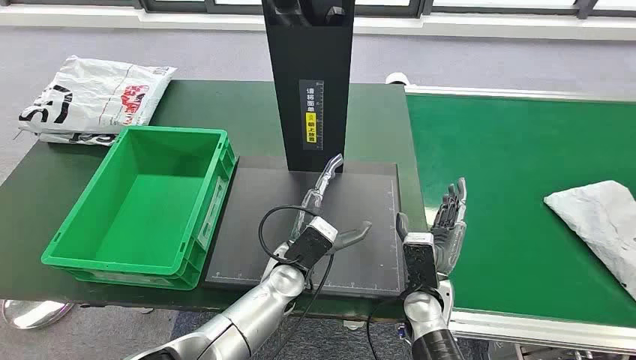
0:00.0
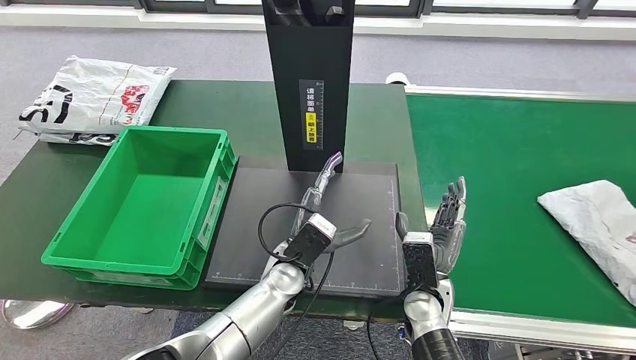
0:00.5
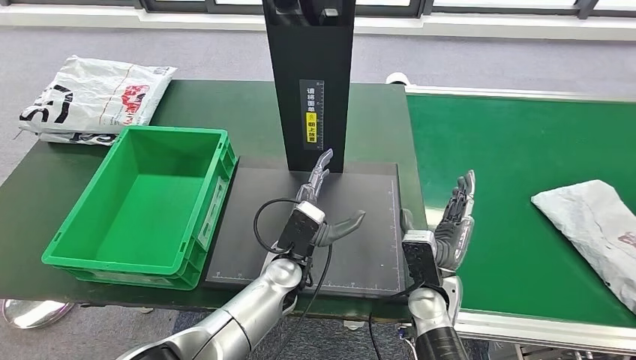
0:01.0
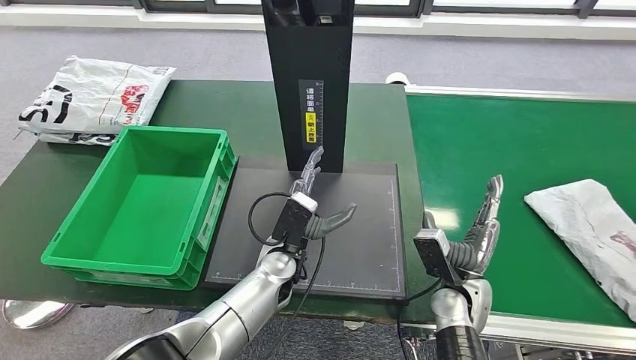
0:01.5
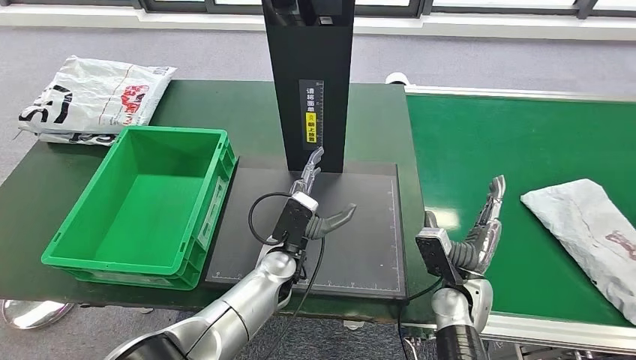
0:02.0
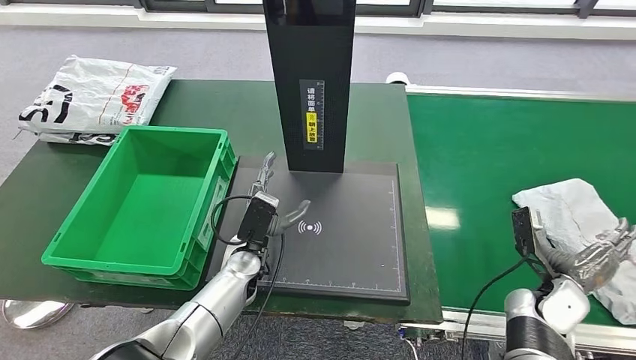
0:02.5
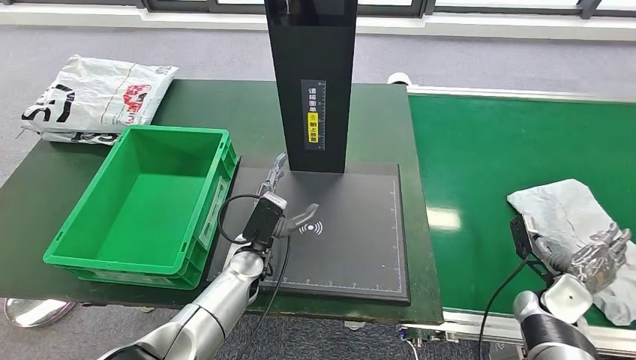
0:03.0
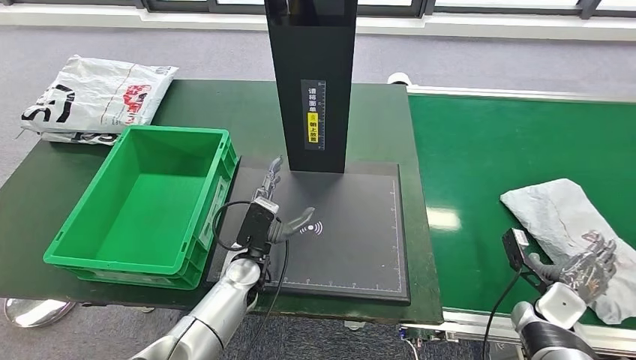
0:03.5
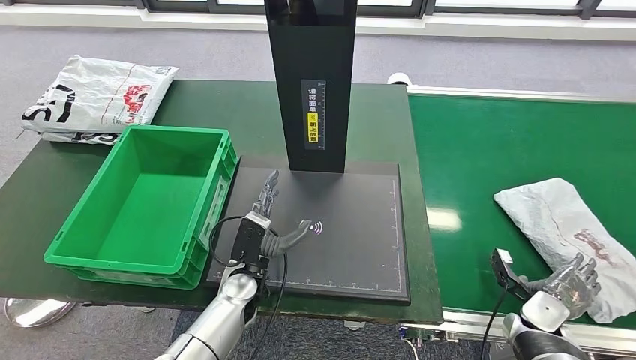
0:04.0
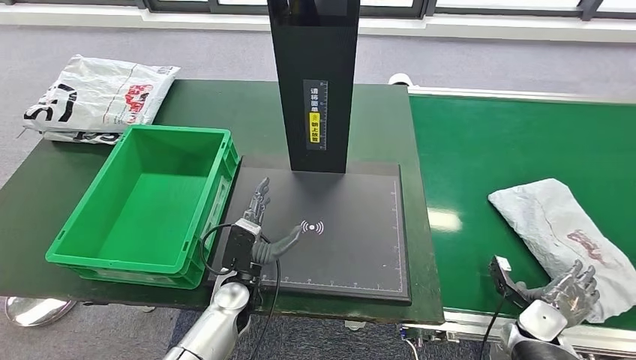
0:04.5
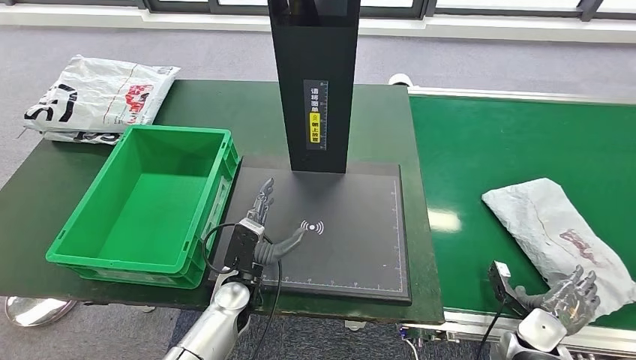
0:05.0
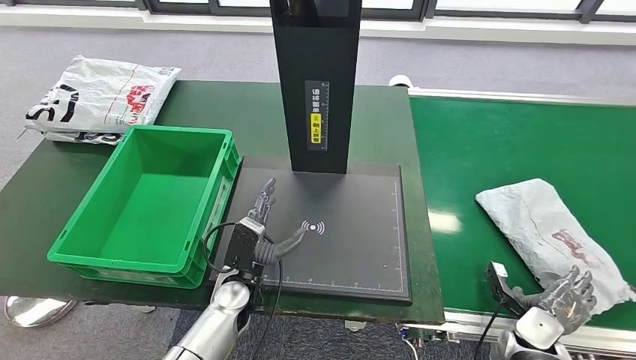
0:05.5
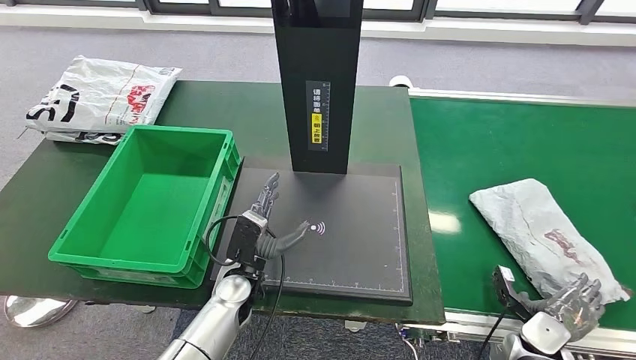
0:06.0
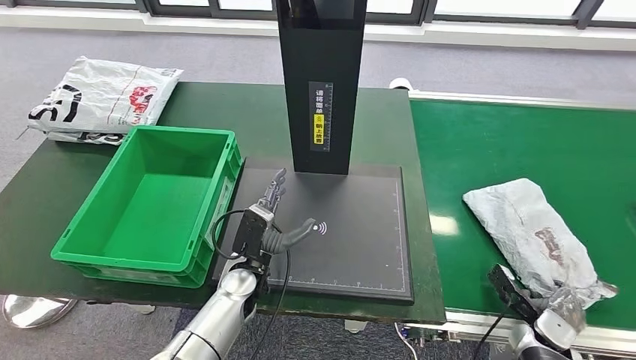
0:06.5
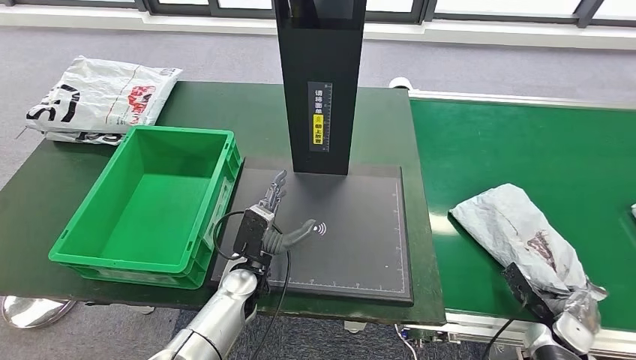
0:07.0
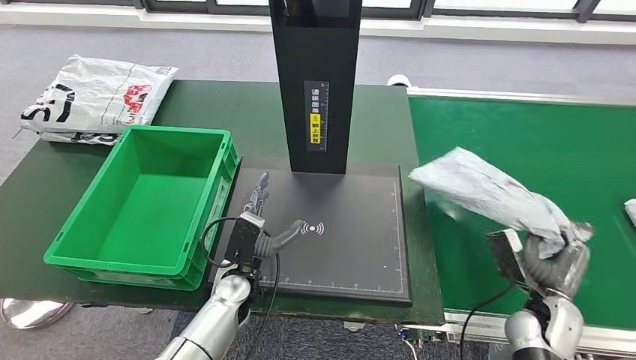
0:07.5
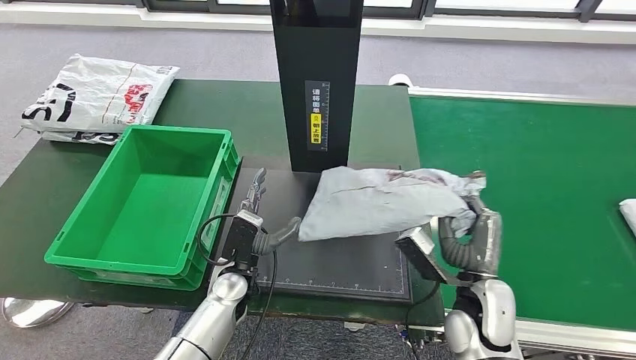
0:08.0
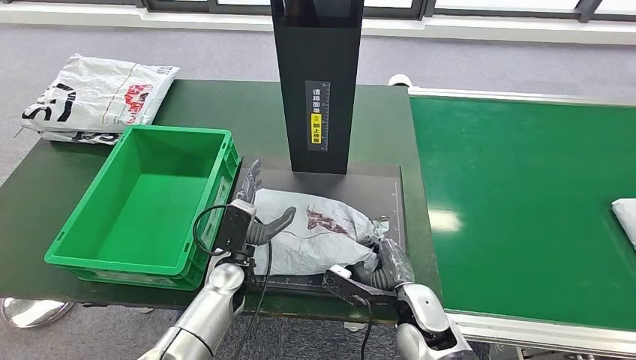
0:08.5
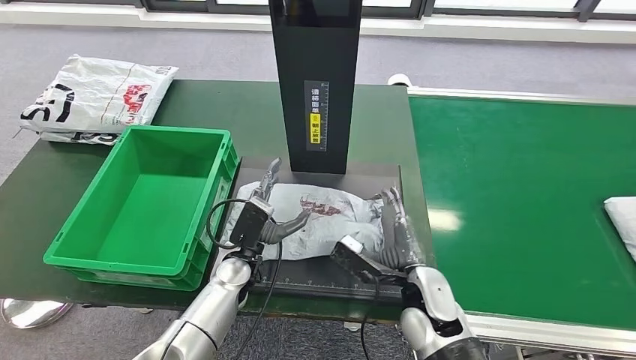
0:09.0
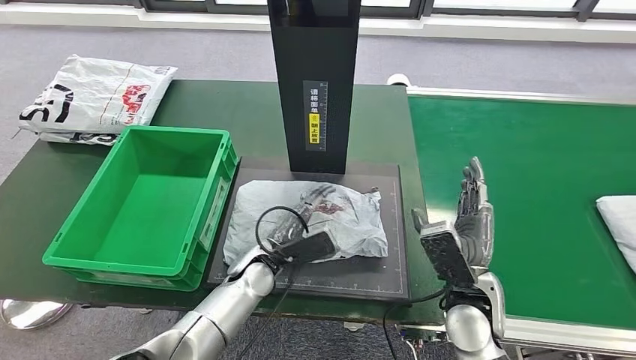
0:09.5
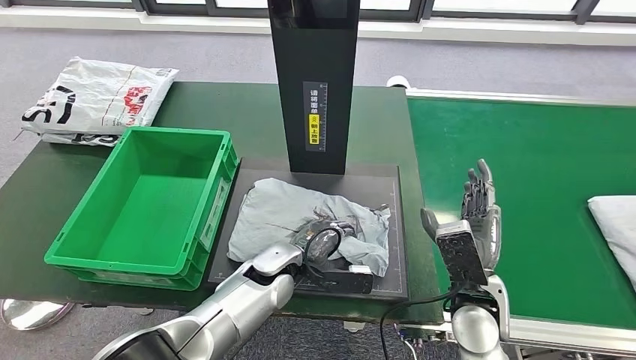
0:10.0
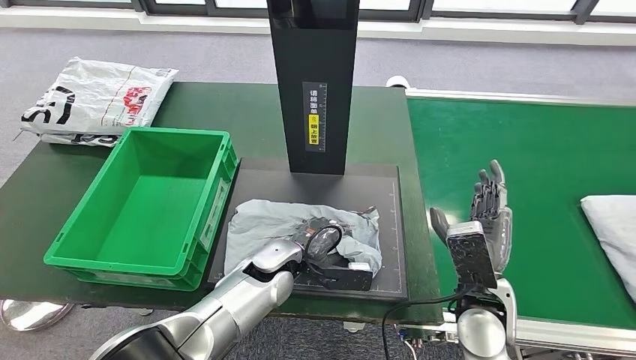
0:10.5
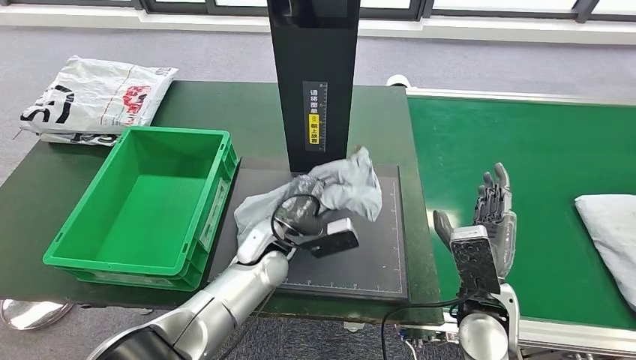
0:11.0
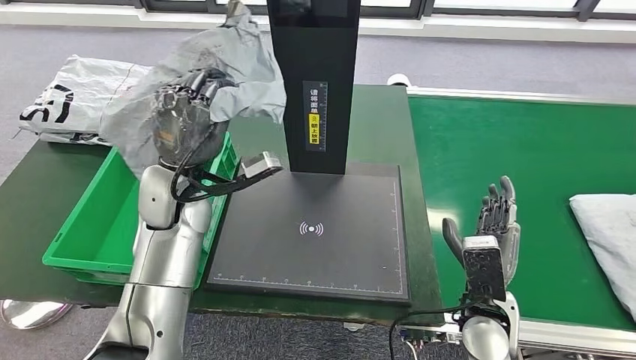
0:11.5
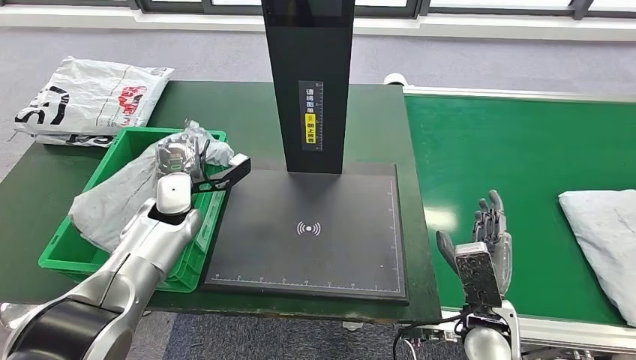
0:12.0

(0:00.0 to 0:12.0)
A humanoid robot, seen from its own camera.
Step, 0:00.0 - 0:07.0: Take the parcel off the conveyor belt.
Step, 0:08.0 - 0:09.5: Place the parcel onto the inbound machine.
Step, 0:10.0 - 0:11.0: Pick up the parcel from the inbound machine.

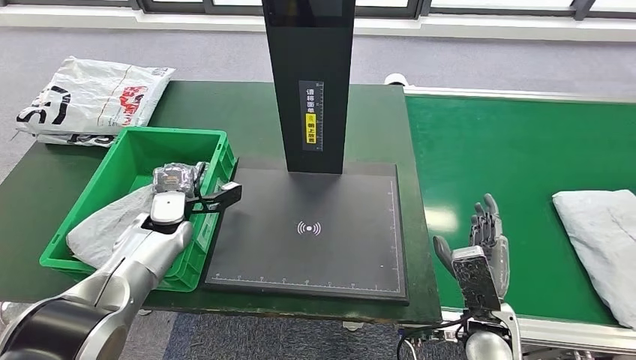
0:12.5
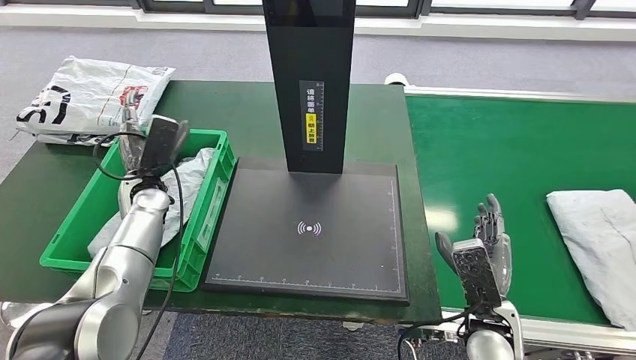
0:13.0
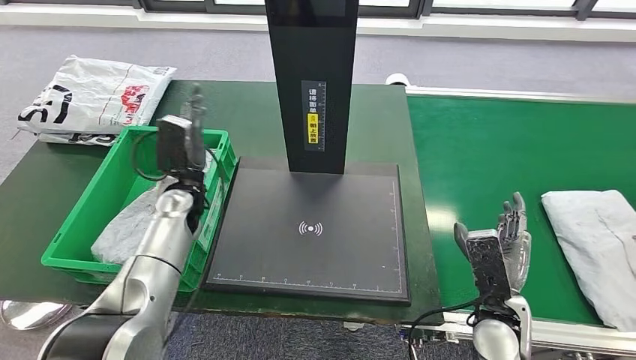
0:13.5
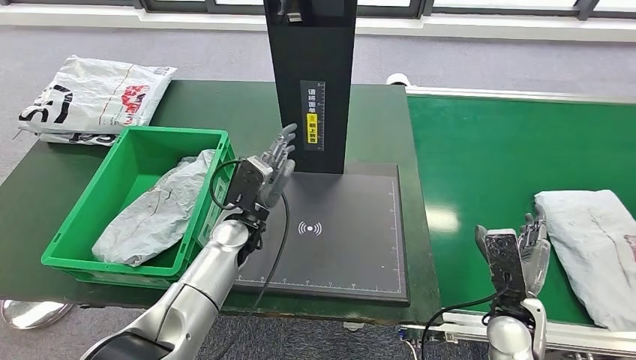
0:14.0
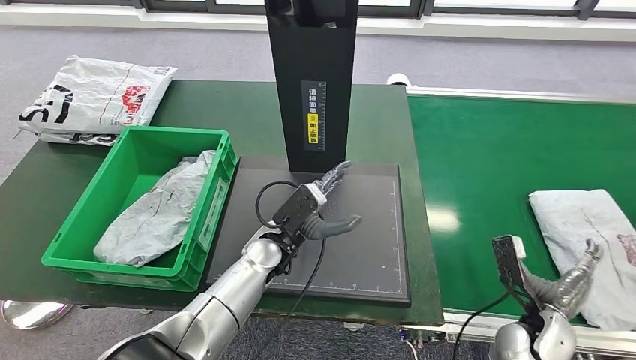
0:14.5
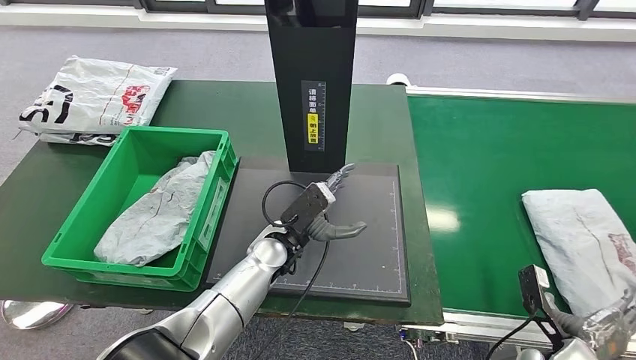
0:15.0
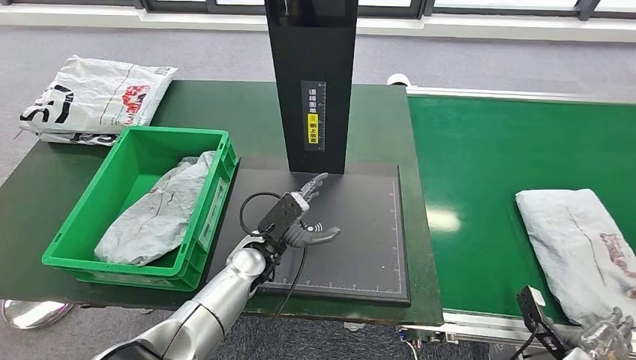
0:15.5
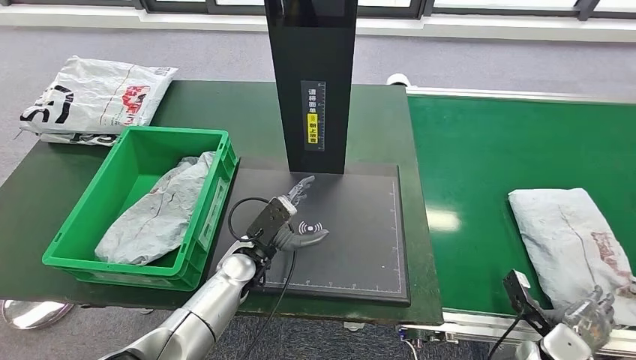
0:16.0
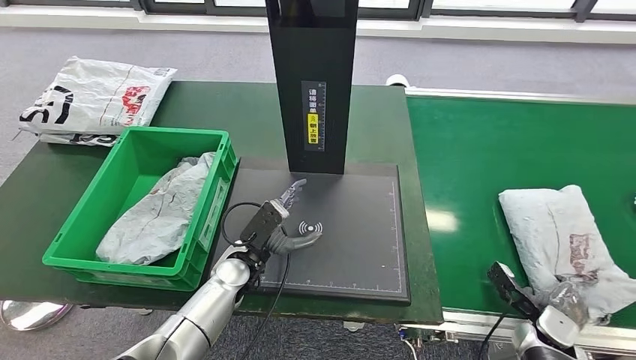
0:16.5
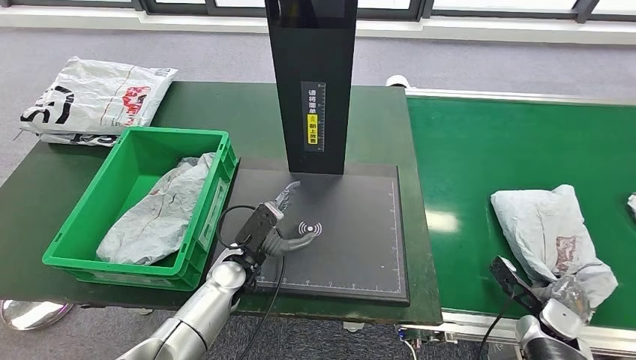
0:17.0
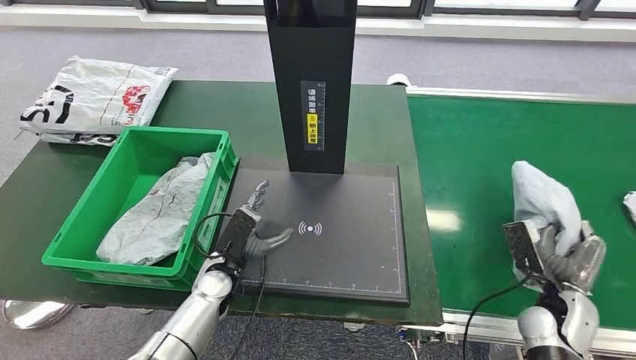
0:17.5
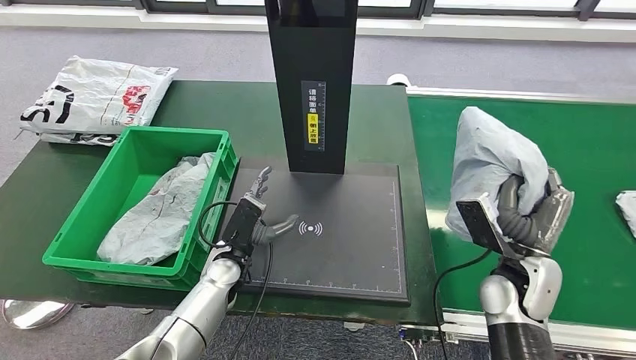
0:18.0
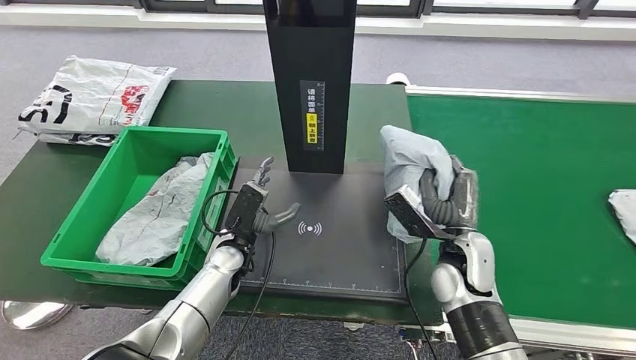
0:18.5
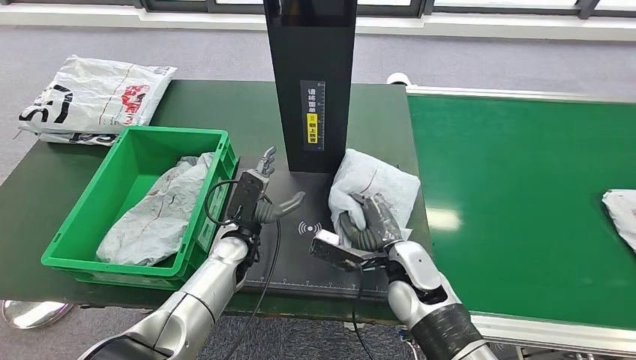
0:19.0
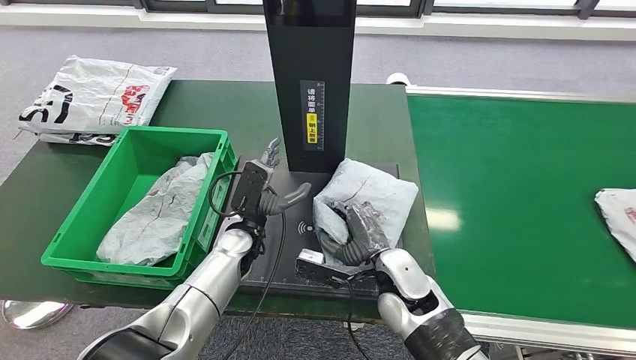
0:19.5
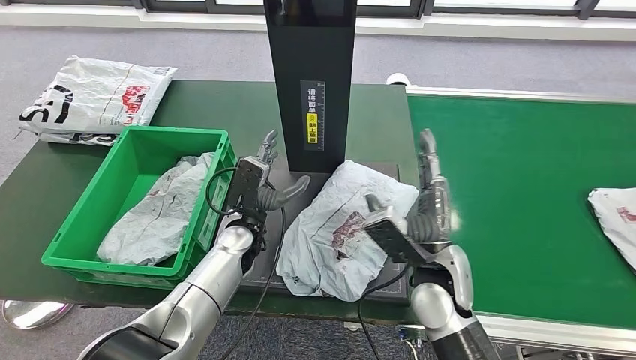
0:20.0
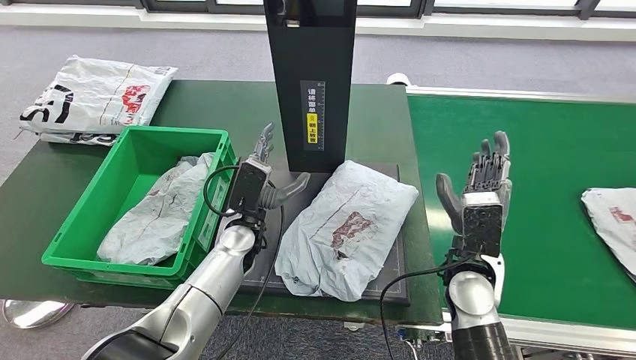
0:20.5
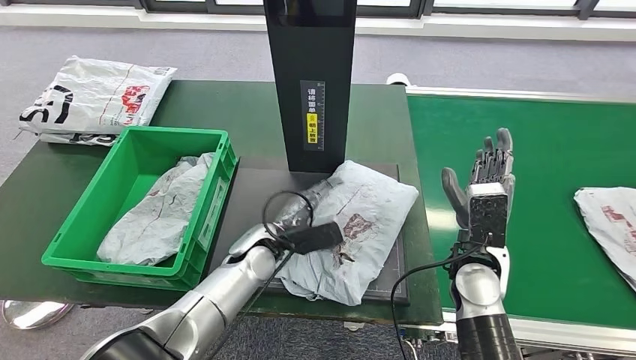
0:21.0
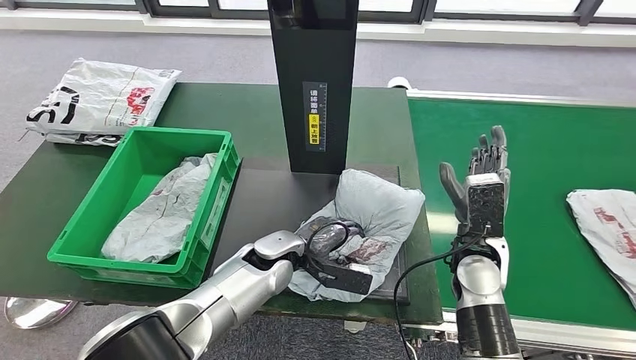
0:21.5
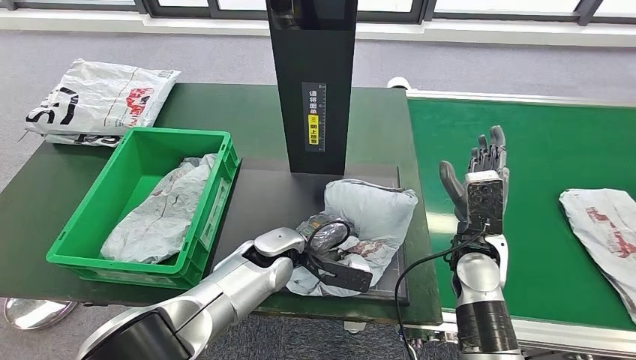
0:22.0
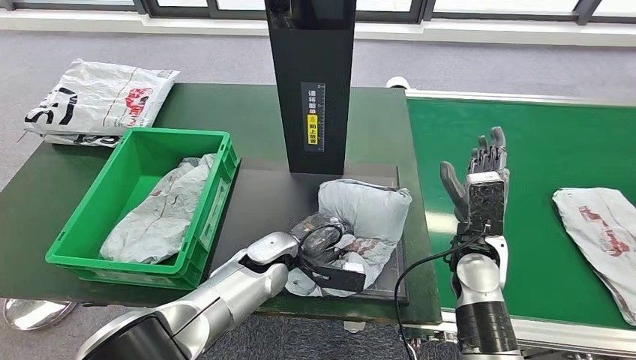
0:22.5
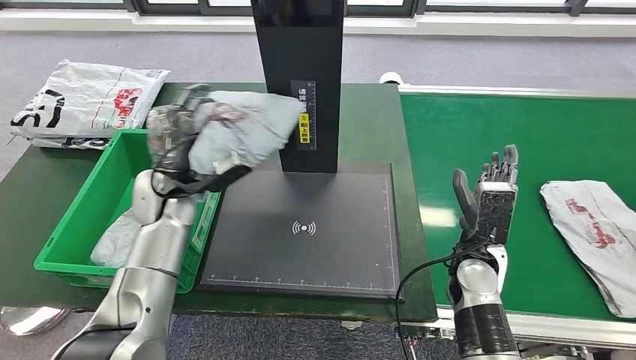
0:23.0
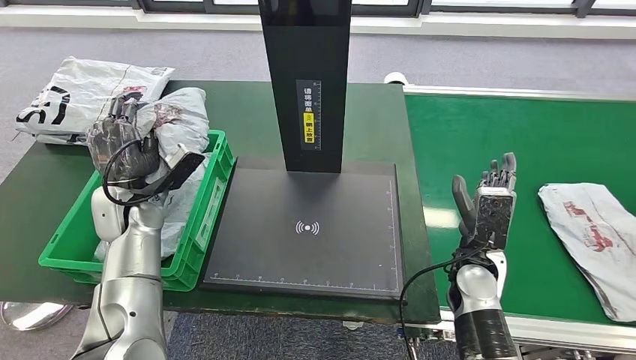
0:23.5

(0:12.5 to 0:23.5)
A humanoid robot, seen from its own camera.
Step, 0:13.5 - 0:17.5: Pick up the parcel from the conveyor belt.
Step, 0:18.0 - 0:20.0: Place the parcel onto the inbound machine.
Step, 0:20.5 - 0:22.5: Pick up the parcel from the inbound machine.
0:14.5 - 0:16.0: The right hand is displaced downward and to the right by about 10 cm. The left hand moves to the left, roughly 5 cm.
0:16.0 - 0:18.0: The right hand goes approximately 20 cm upward, to the left and forward.
